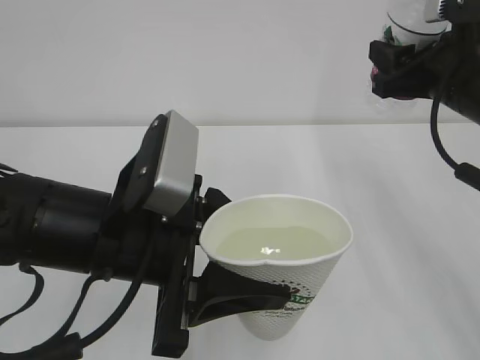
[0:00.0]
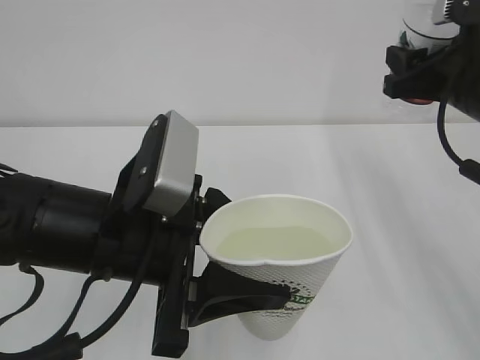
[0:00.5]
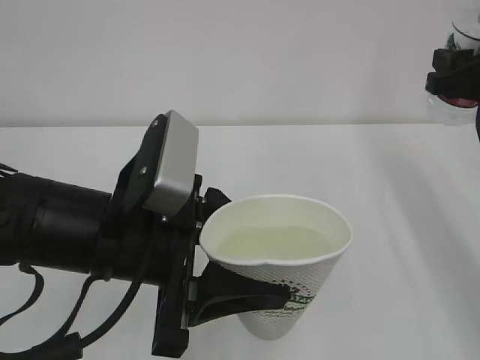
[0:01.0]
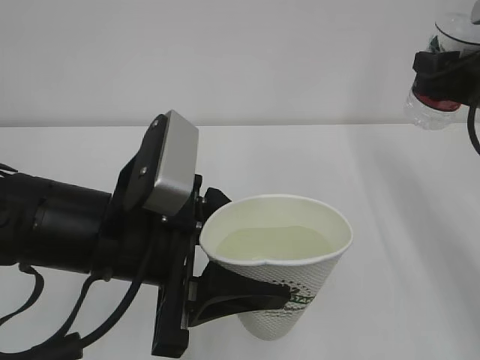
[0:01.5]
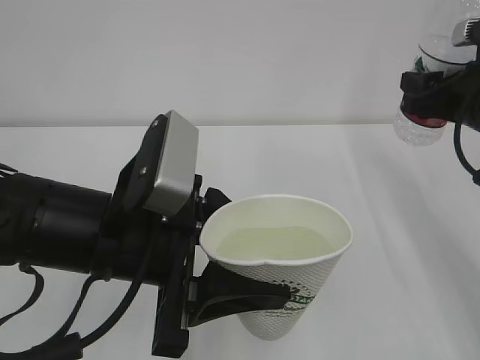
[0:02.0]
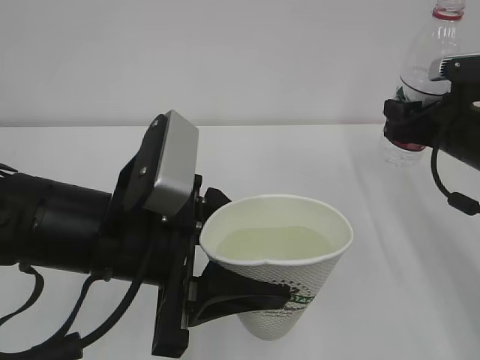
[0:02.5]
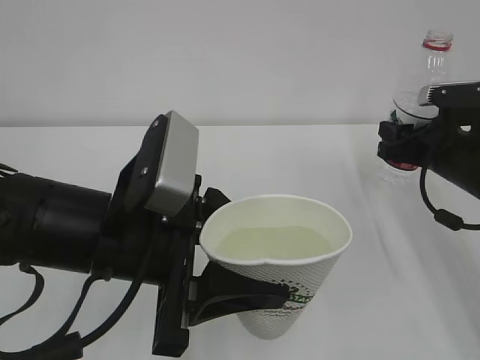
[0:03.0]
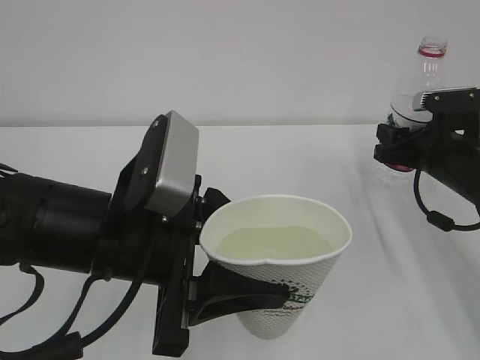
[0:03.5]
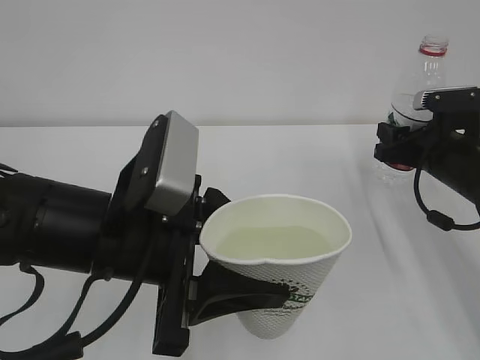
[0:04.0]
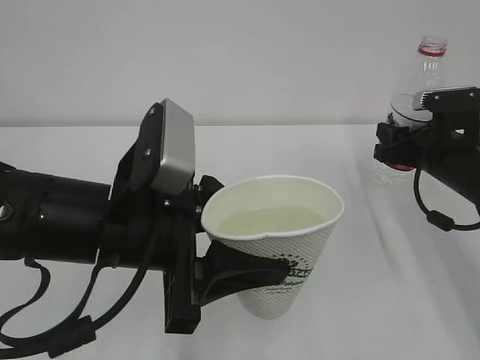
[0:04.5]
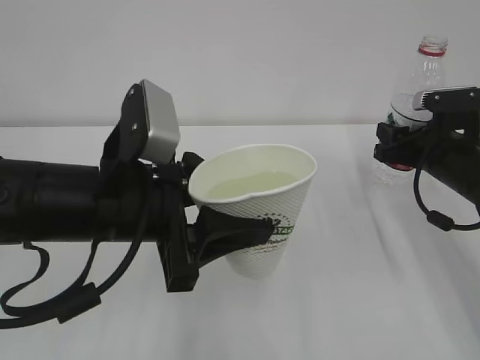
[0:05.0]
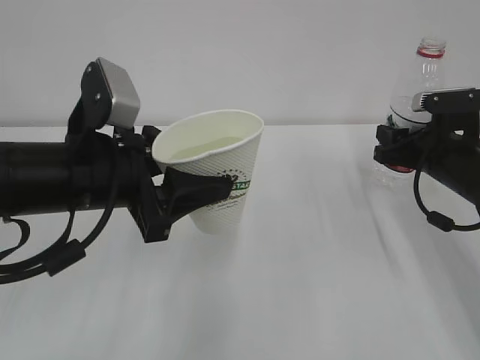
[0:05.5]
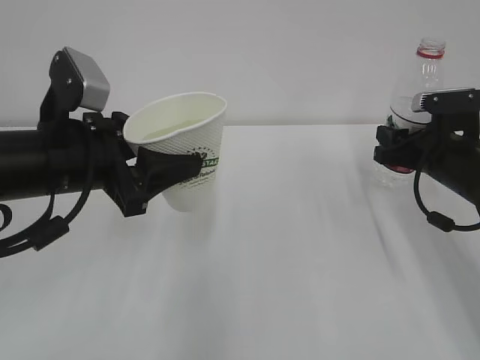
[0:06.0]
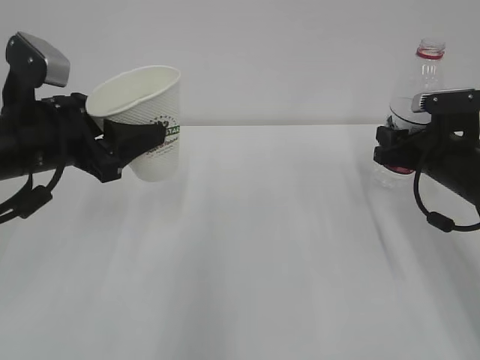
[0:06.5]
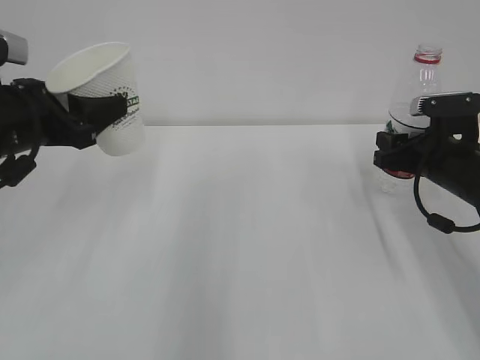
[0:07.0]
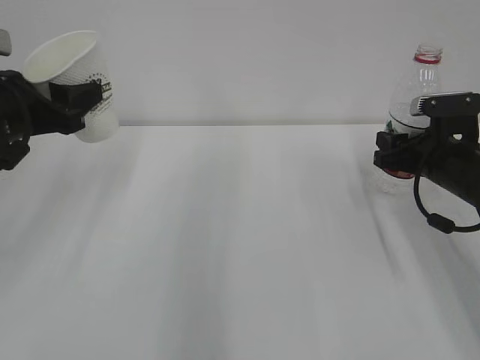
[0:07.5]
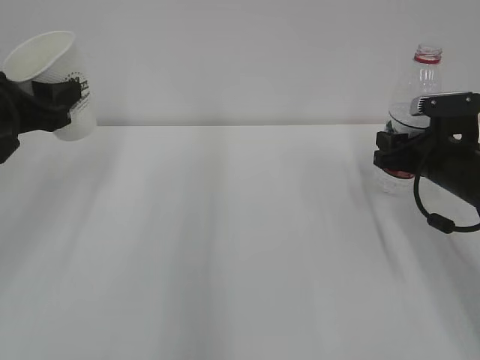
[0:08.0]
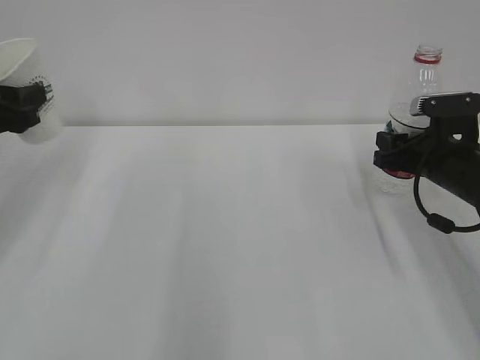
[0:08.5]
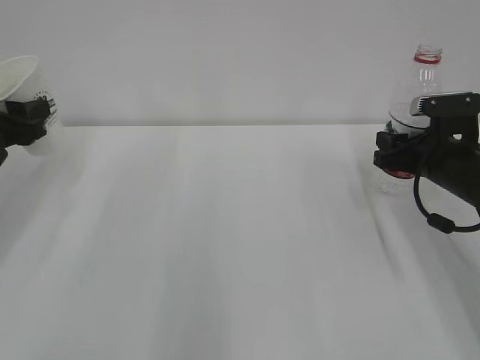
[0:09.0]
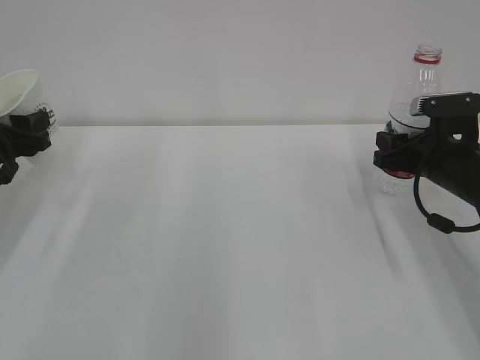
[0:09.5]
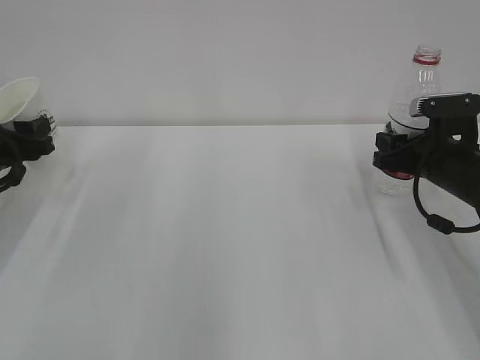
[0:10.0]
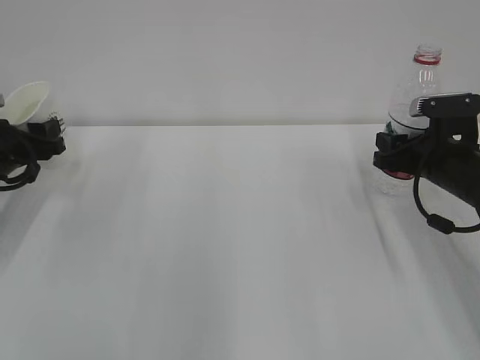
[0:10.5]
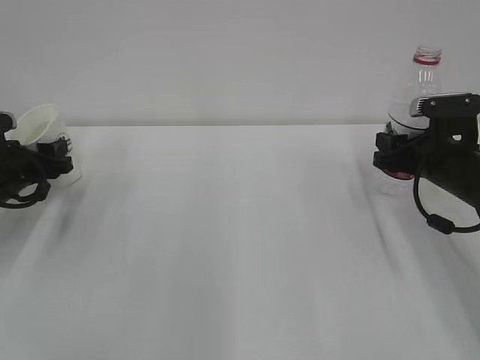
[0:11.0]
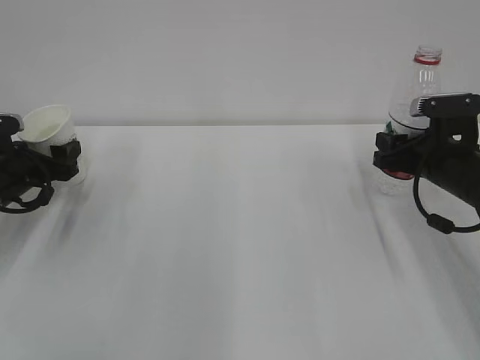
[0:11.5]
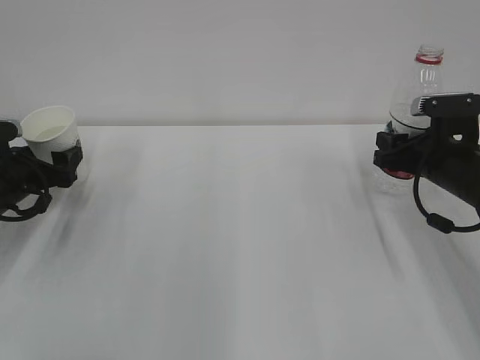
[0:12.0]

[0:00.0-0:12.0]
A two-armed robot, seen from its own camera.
0:00.0 to 0:02.0: The right gripper moves some 5 cm.
0:02.0 to 0:04.0: The right gripper travels downward by some 10 cm.
0:04.0 to 0:06.0: The left gripper goes roughly 10 cm forward and to the left.
0:06.0 to 0:08.0: The left gripper heads to the left and forward, covering approximately 10 cm.
0:08.0 to 0:10.0: The left gripper is displaced downward and to the left by roughly 10 cm.
0:10.0 to 0:12.0: The left gripper heads downward, covering some 5 cm, and opens its fingers.

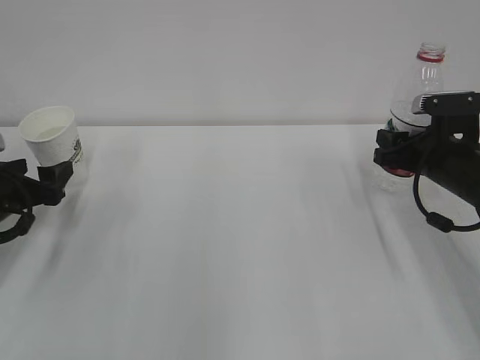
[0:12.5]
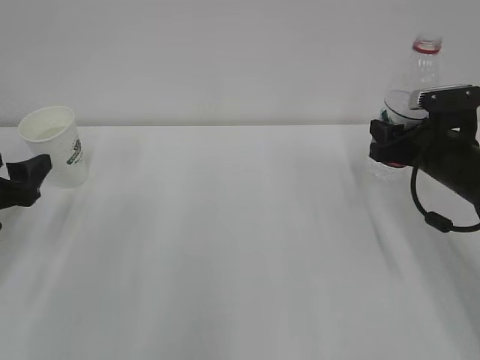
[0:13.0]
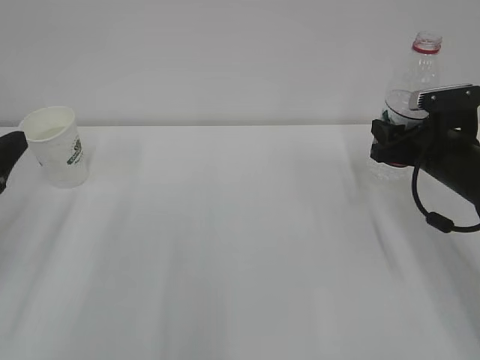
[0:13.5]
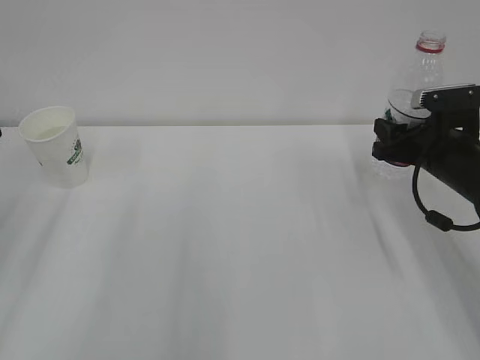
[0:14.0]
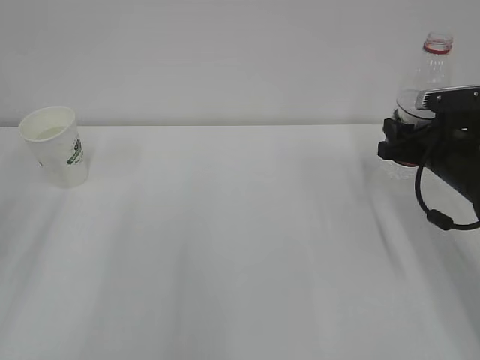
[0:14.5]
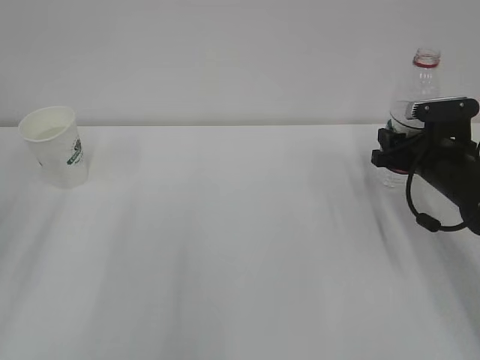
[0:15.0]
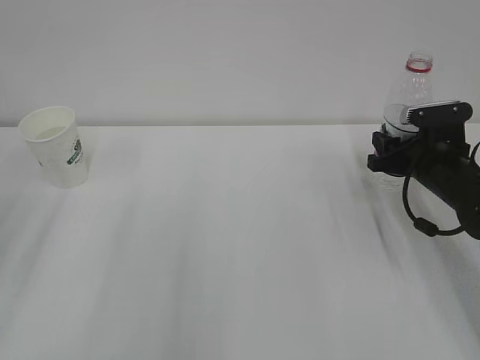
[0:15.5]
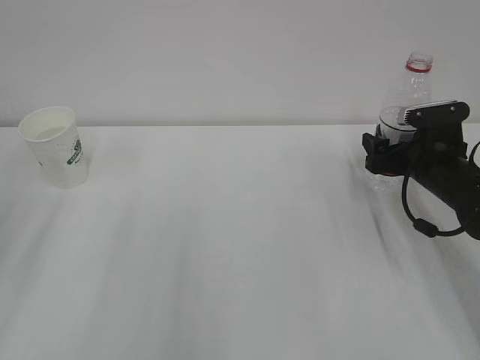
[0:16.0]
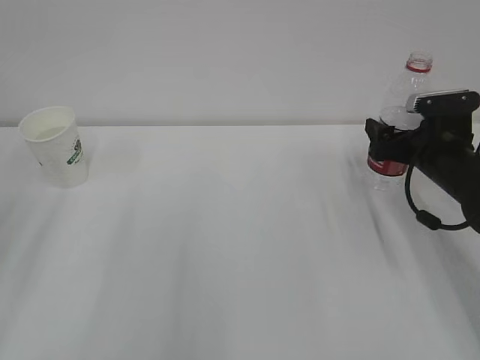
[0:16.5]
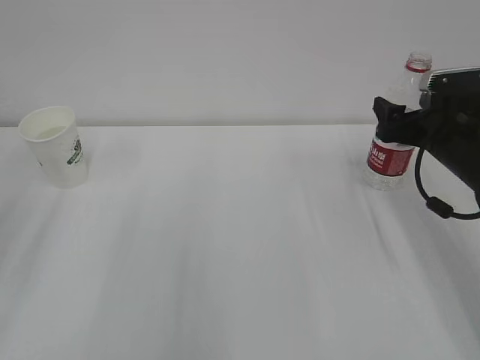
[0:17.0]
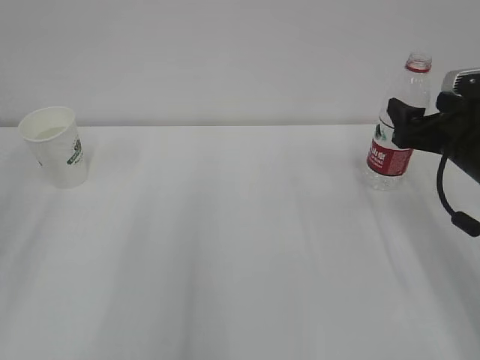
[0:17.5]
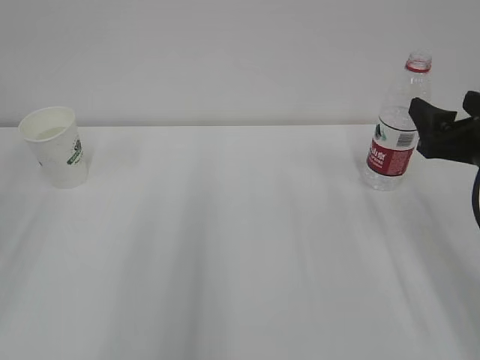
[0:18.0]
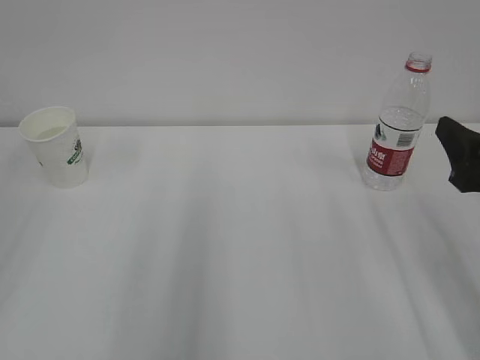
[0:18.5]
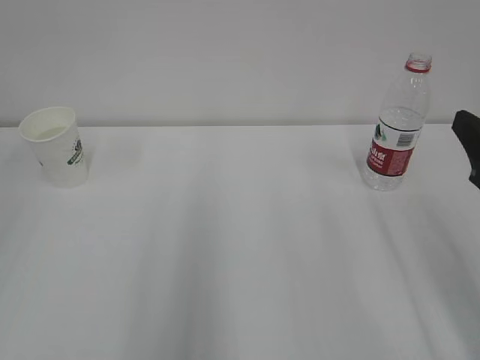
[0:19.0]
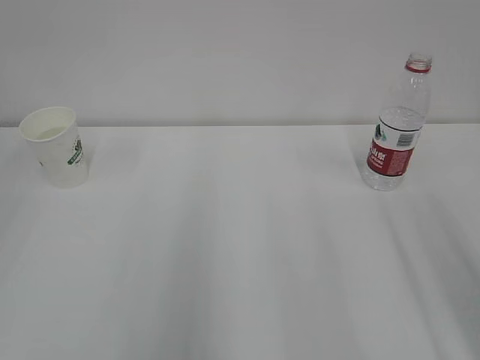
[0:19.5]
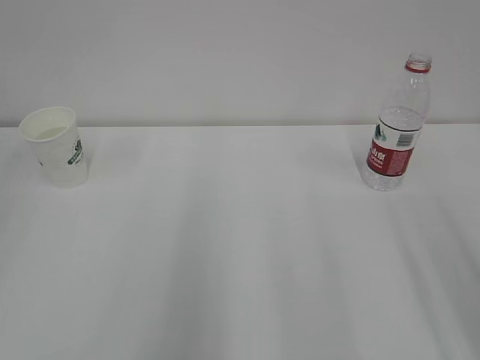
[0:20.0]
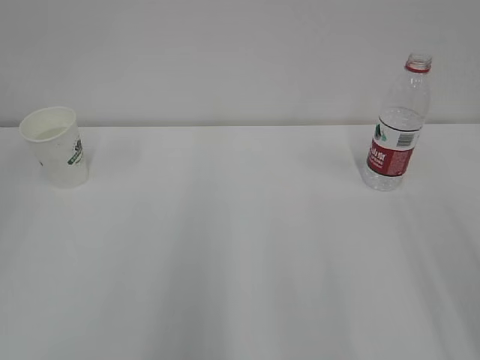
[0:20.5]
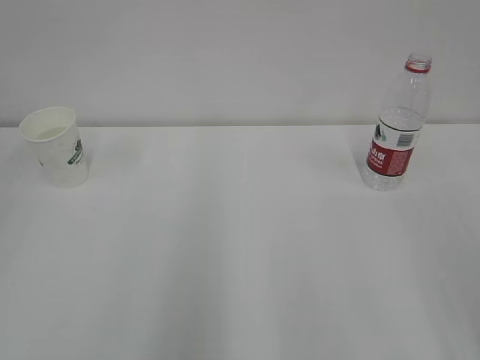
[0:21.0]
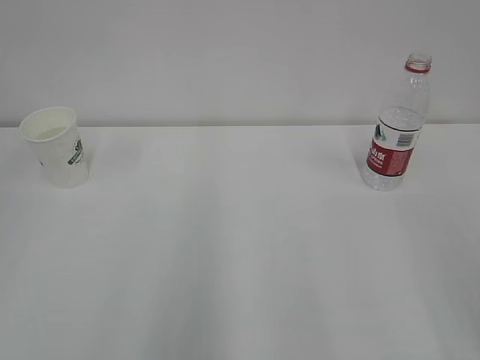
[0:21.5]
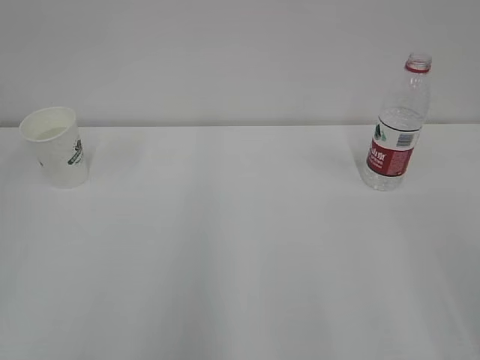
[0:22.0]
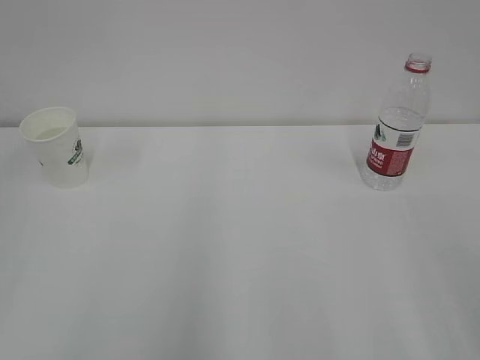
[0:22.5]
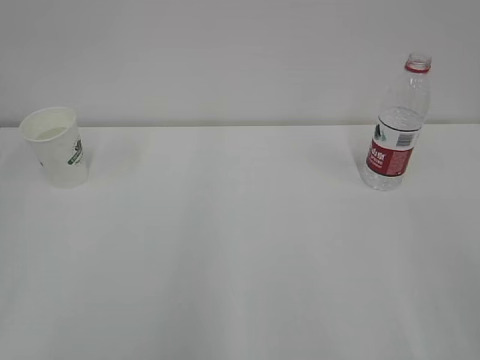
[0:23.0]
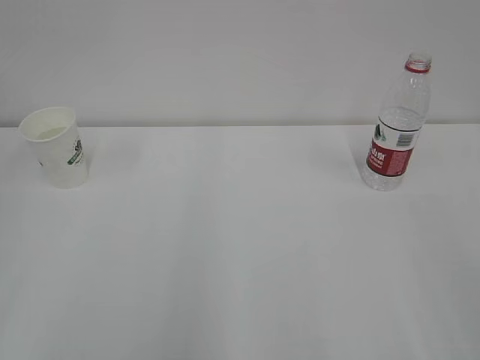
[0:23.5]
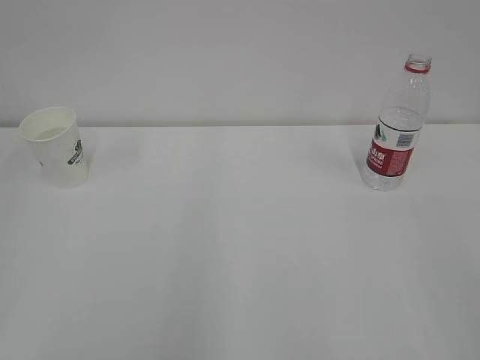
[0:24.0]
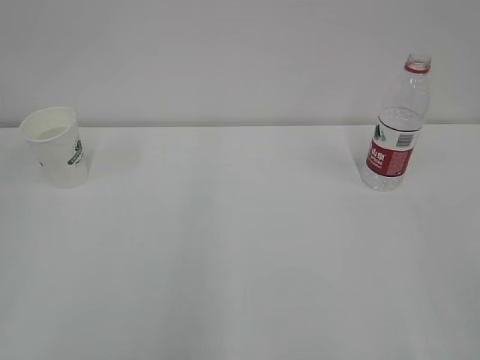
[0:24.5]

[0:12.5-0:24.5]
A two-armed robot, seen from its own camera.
0:12.5 to 0:14.5: The left gripper moves upward and backward, roughly 20 cm.
0:14.5 to 0:16.5: The right gripper opens.
0:16.5 to 0:18.5: The right gripper shifts about 20 cm backward and upward.
0:18.5 to 0:20.5: The right gripper moves backward and upward, about 15 cm.

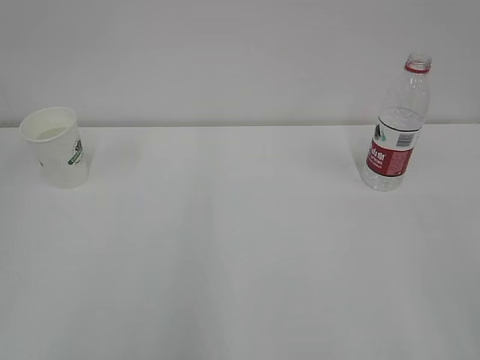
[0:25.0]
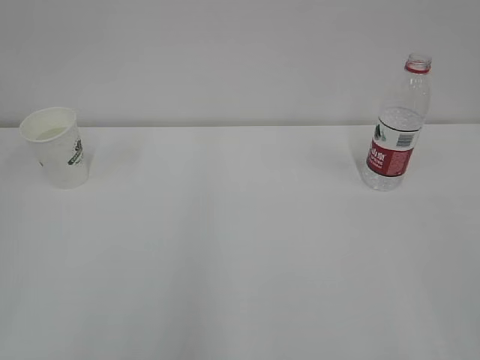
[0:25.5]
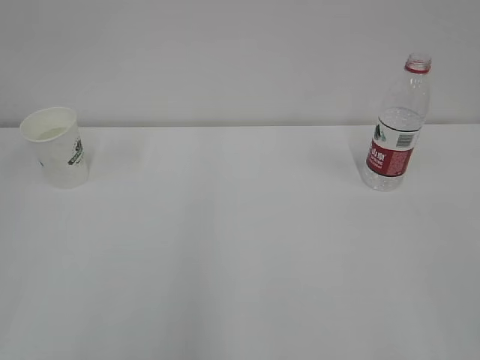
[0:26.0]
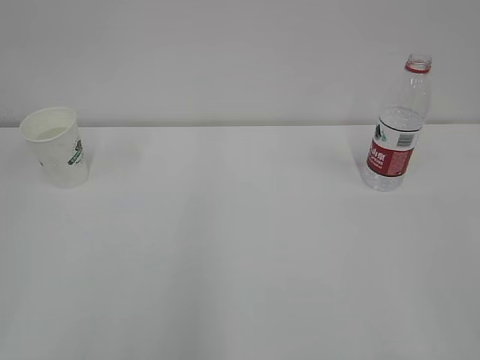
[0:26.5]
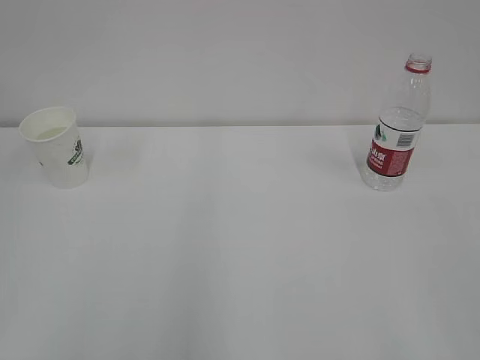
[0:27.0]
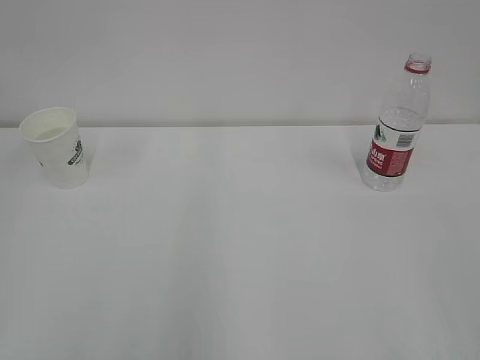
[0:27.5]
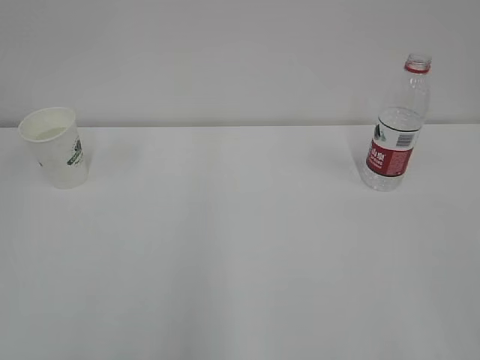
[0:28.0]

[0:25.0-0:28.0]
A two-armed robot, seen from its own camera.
0:26.5 to 0:28.0: The two grippers keep their place.
